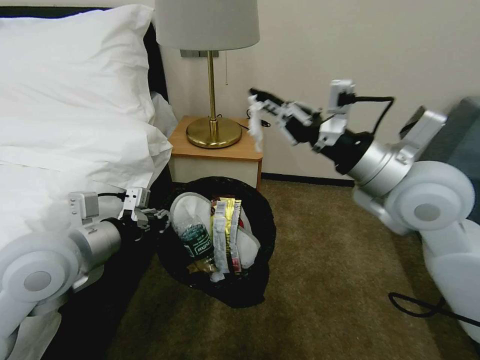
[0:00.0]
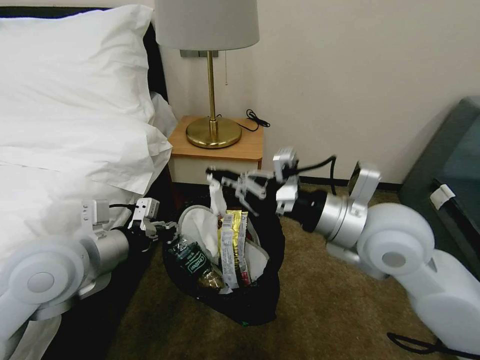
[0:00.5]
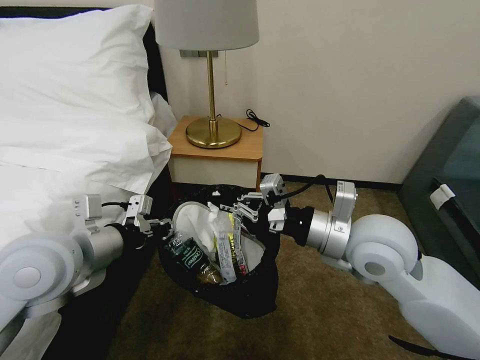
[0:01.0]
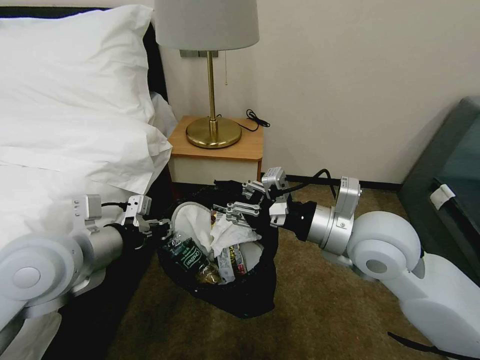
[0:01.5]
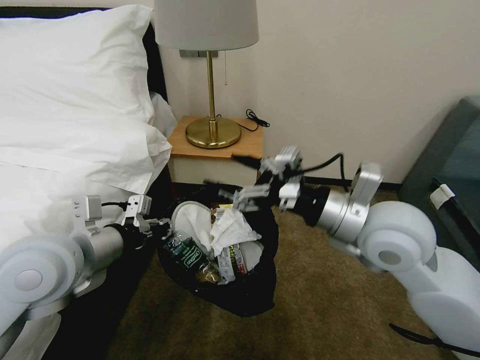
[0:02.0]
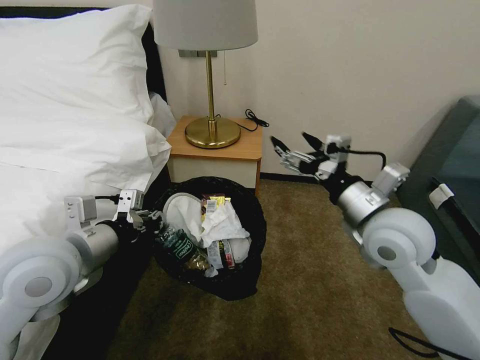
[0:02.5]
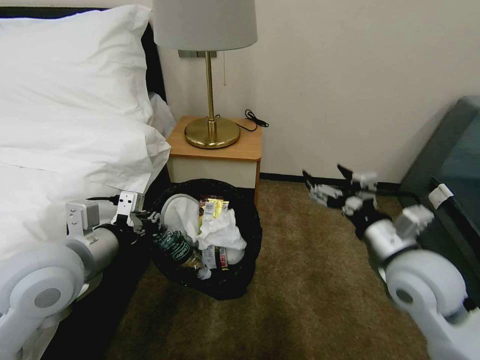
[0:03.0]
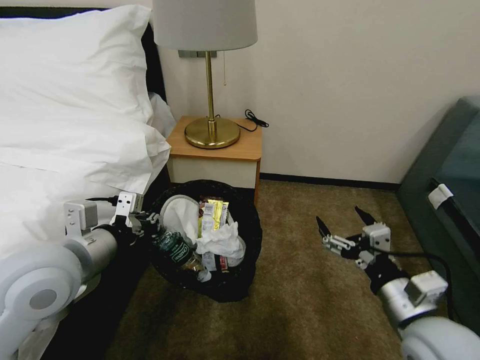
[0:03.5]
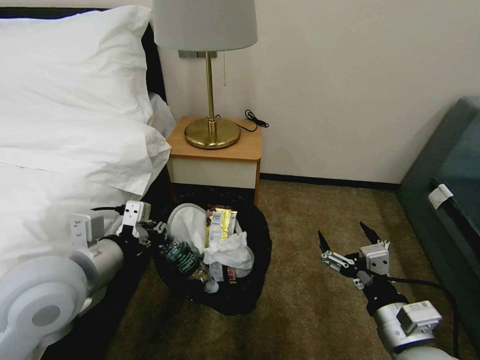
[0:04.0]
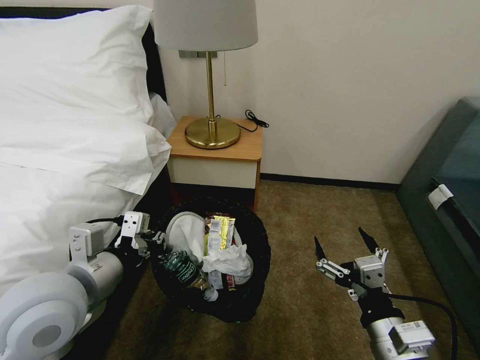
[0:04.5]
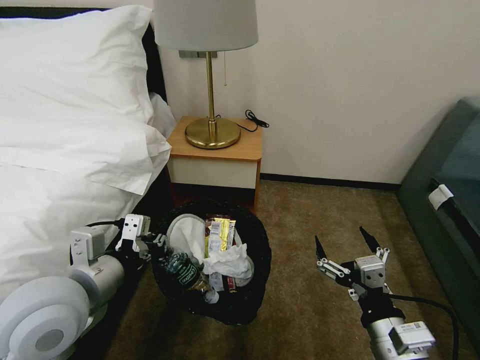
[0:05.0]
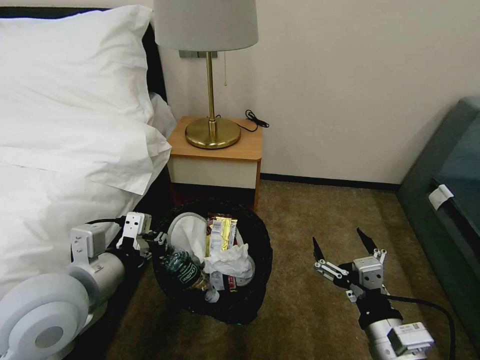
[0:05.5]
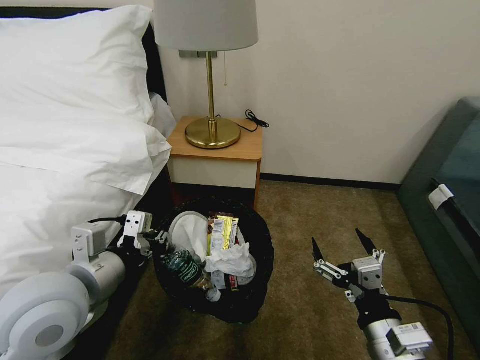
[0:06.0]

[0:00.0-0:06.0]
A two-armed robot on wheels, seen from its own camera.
Task of the whole recording: Pick up the trash bin, then pick up the garbage on the floor and place it into the trash bin.
0:00.0 to 0:02.0: The right gripper travels downward by some 5 cm, and opens.
0:02.0 to 0:04.0: The right gripper is displaced backward and downward by roughly 20 cm.
0:04.0 to 0:06.0: There are only small adjustments of the grippers.

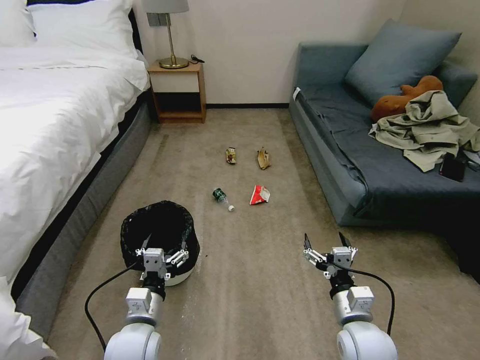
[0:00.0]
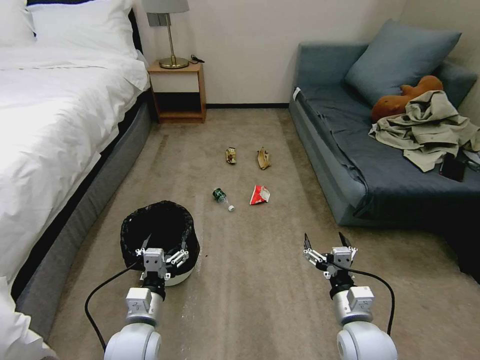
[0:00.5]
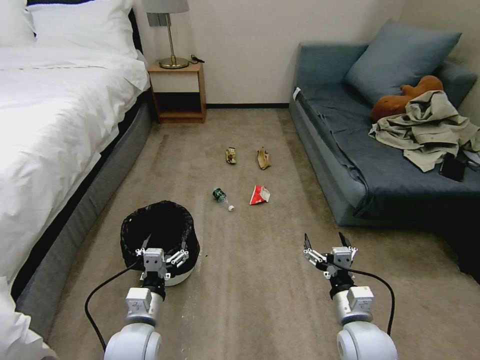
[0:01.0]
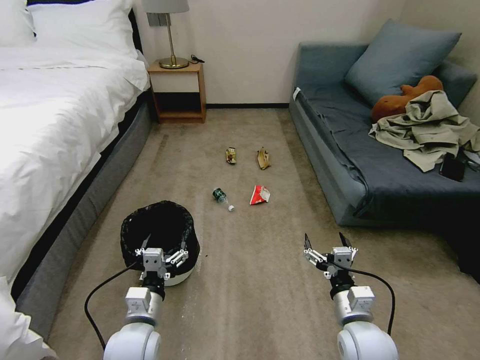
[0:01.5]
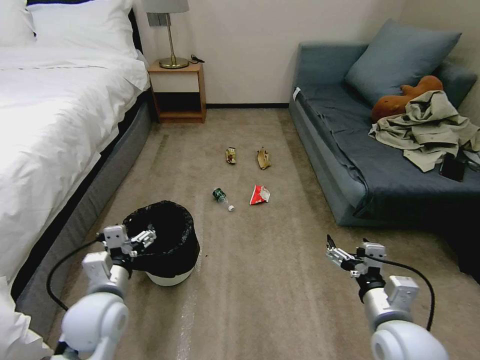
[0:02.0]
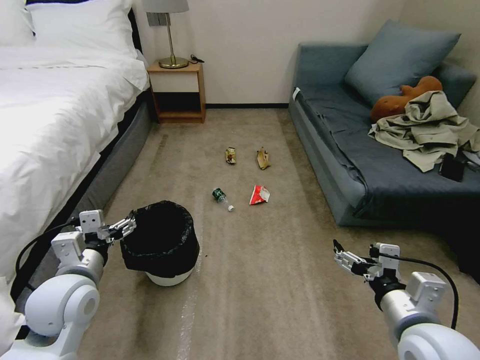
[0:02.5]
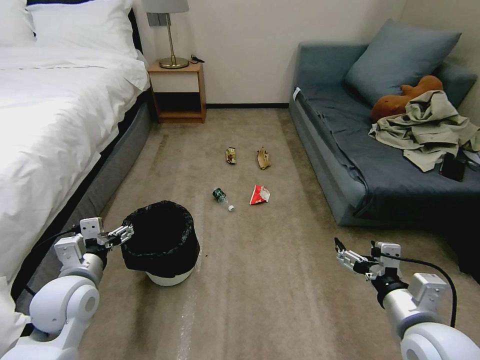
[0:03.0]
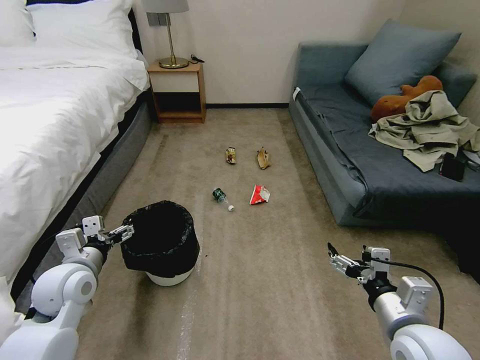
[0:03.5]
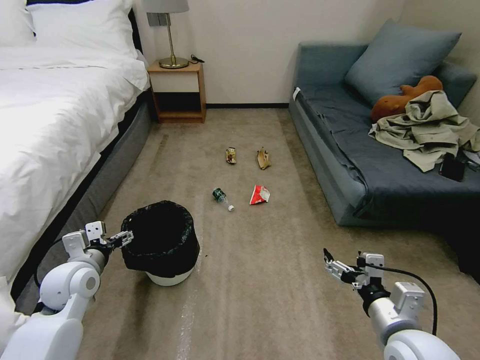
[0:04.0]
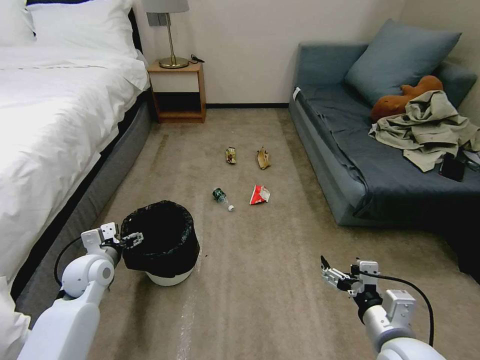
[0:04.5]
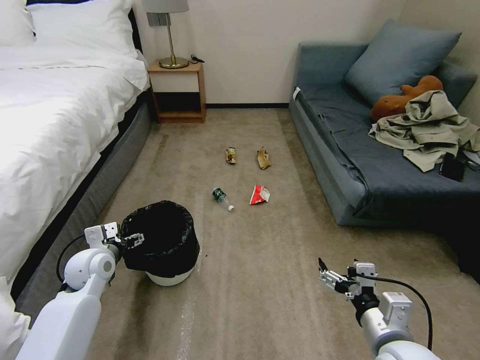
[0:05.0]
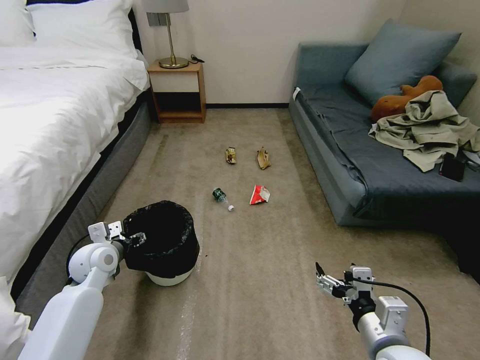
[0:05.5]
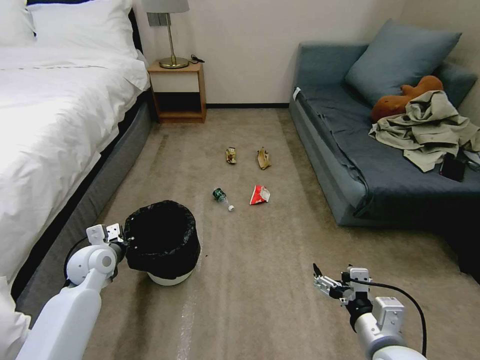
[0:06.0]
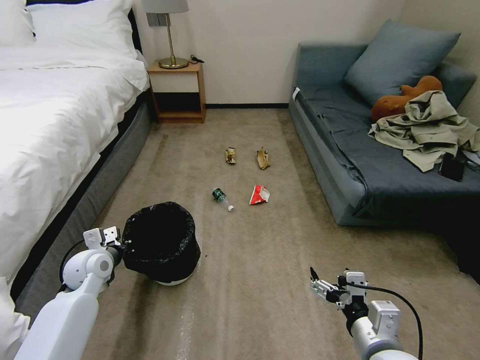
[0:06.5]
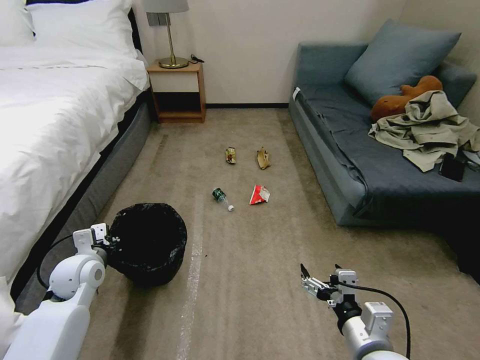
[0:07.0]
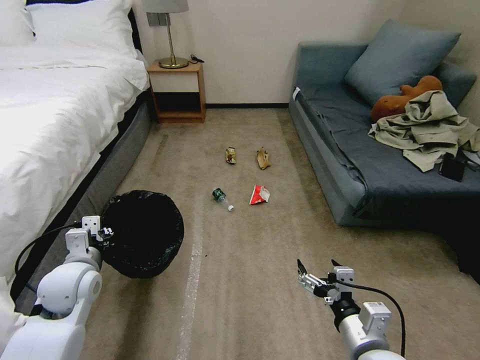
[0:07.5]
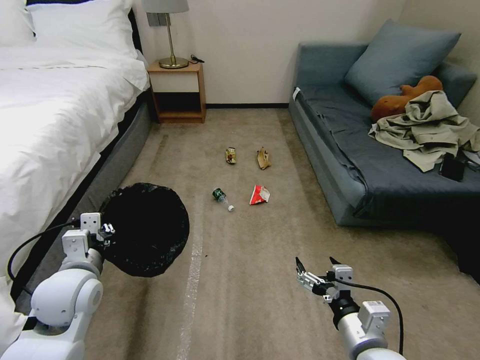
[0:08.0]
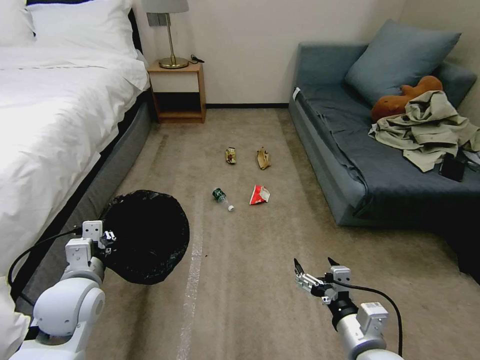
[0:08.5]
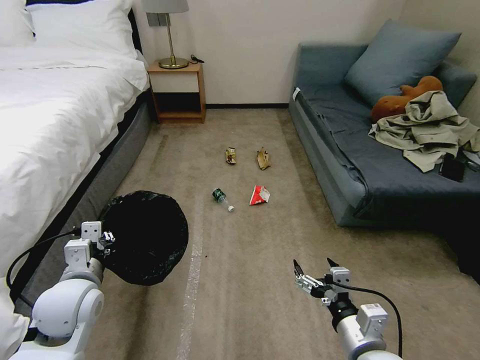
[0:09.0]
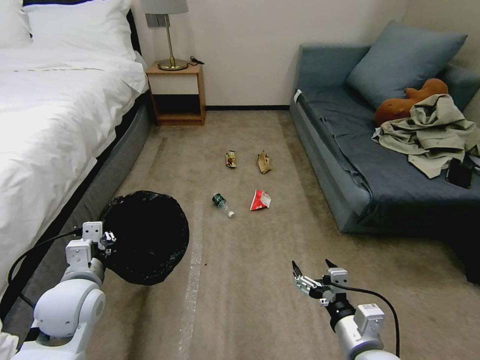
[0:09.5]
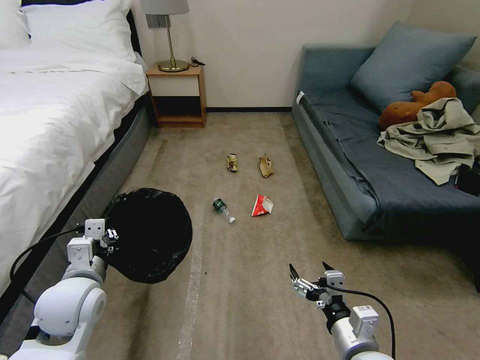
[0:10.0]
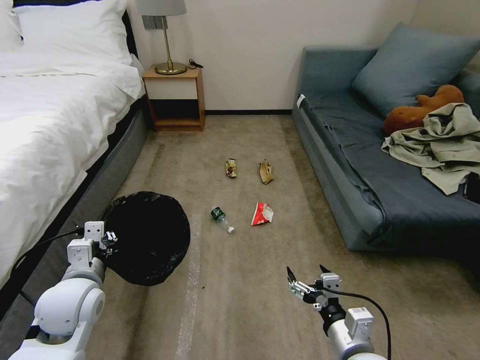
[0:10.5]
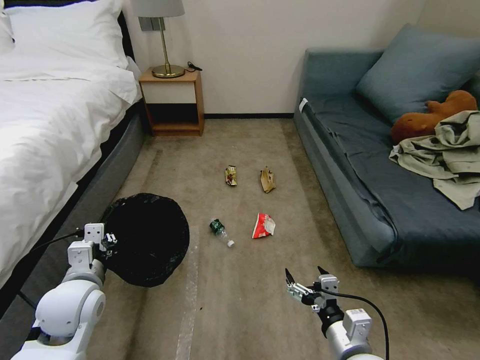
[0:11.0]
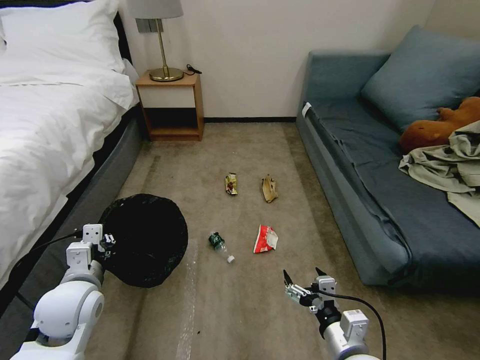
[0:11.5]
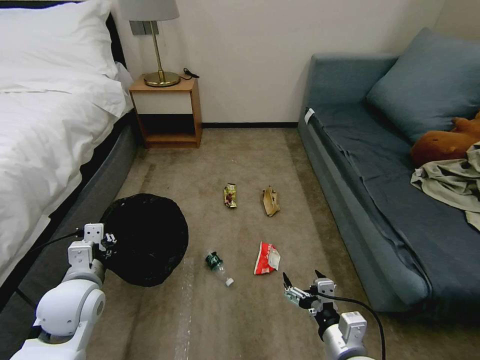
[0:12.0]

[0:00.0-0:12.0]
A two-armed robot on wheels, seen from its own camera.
Task of the whole recording: Pick up the trash bin, then pick up the garbage on the floor and place it into the trash bin.
0:02.0 to 0:04.0: The left gripper is displaced to the left and forward by about 10 cm.
0:04.0 to 0:06.0: The left gripper heads forward, covering approximately 5 cm, and closes.
0:06.0 to 0:08.0: The left gripper is displaced backward and upward by some 15 cm.

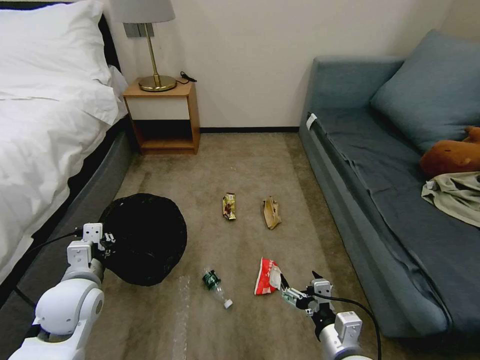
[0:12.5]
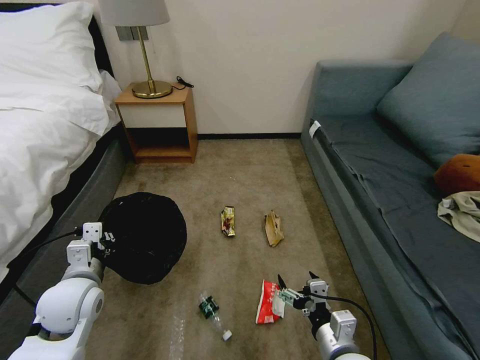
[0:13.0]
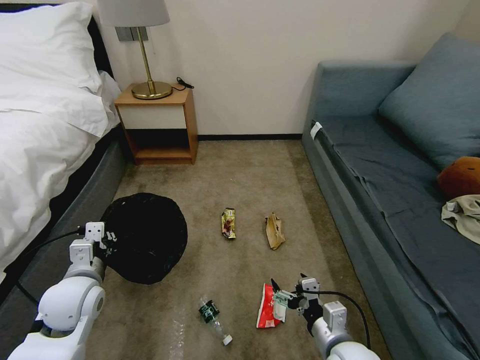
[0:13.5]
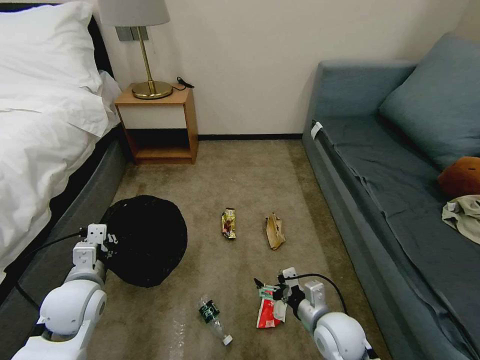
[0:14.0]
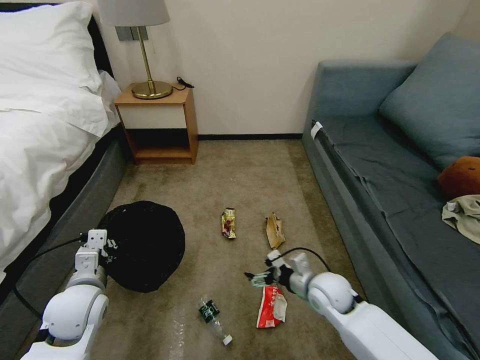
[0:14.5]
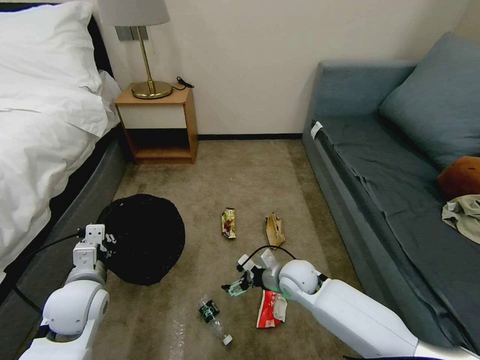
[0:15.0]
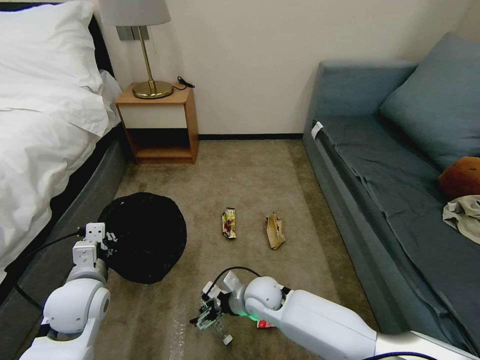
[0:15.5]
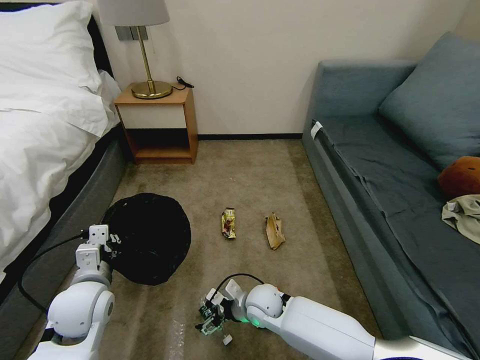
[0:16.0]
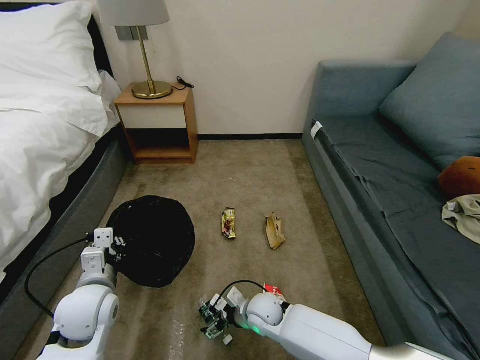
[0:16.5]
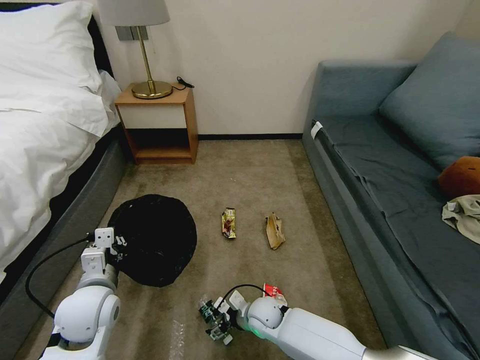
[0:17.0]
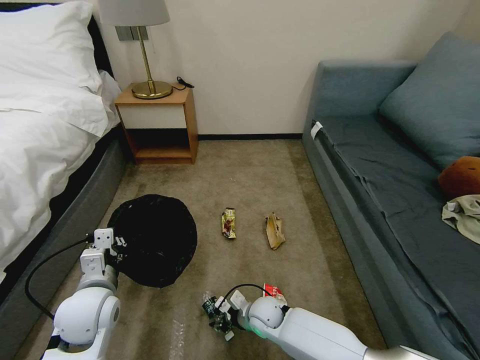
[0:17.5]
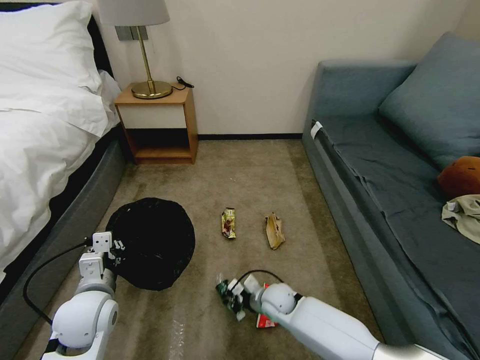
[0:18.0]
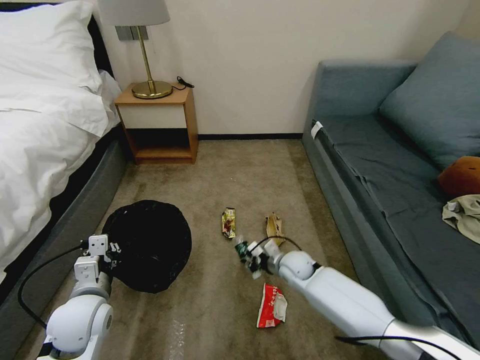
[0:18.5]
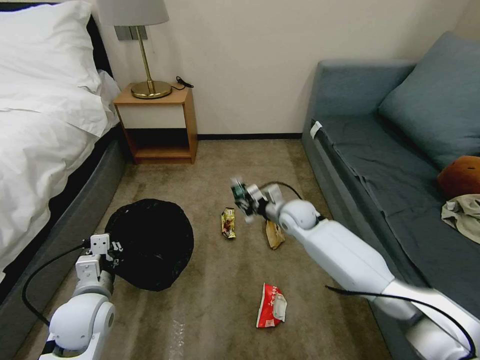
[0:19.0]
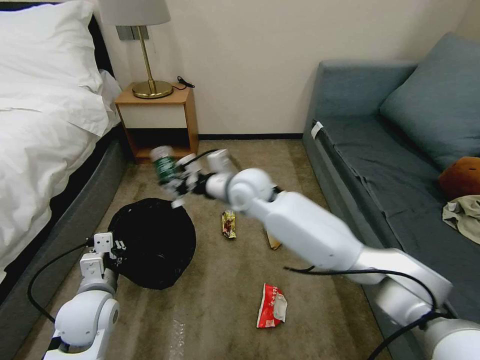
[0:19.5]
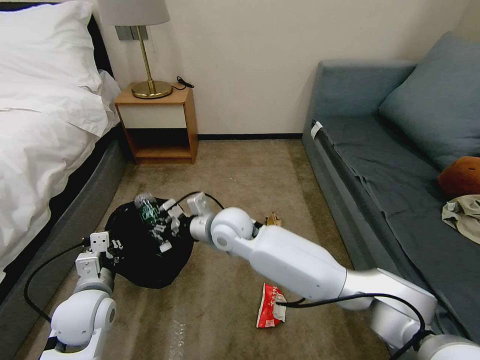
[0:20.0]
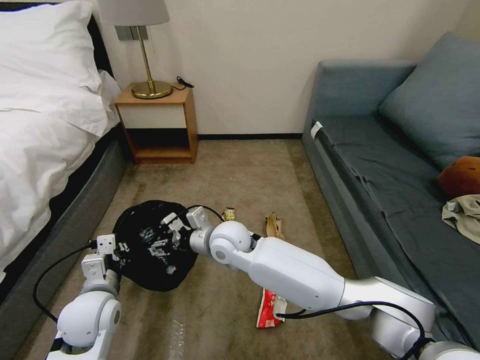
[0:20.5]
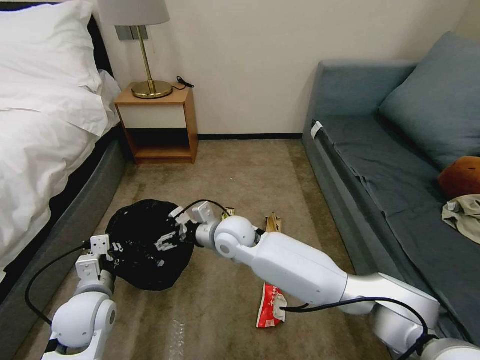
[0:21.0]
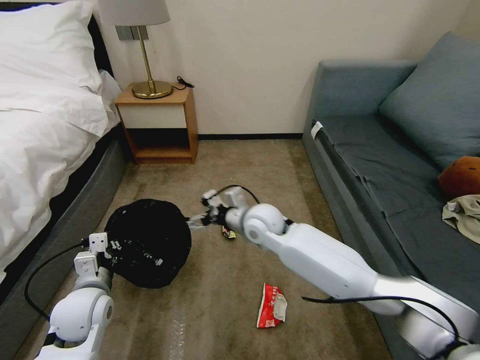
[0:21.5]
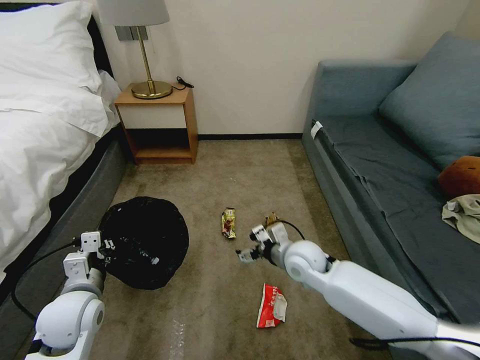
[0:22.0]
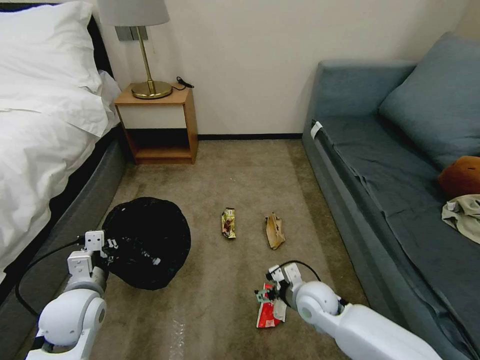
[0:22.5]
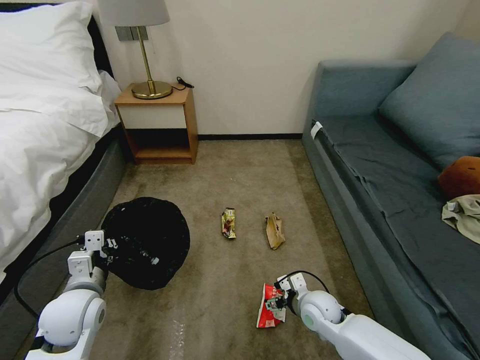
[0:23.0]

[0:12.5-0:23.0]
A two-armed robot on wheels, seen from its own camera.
Task of the whole recording: Pick up the trash bin, then pick up the garbage on the floor and place it into the trash bin.
0:12.5 to 0:14.5: The right gripper shifts roughly 20 cm forward.
0:14.5 to 0:16.5: The right gripper goes some 15 cm to the left and downward.
0:16.5 to 0:19.0: The right gripper shifts approximately 25 cm forward, upward and to the right, and closes its fingers.
0:19.0 to 0:21.0: The right gripper moves to the left and backward, roughly 20 cm, and opens its fingers.
0:21.0 to 0:23.0: The right gripper goes roughly 30 cm to the right, downward and backward.
